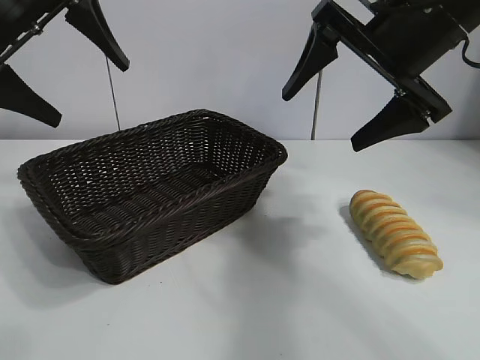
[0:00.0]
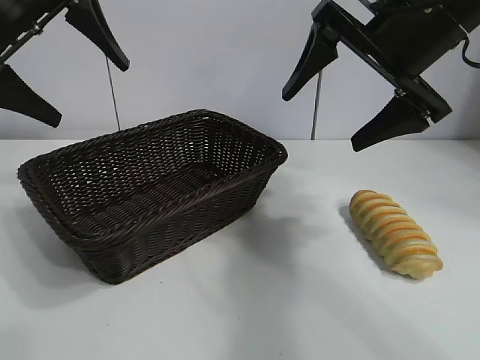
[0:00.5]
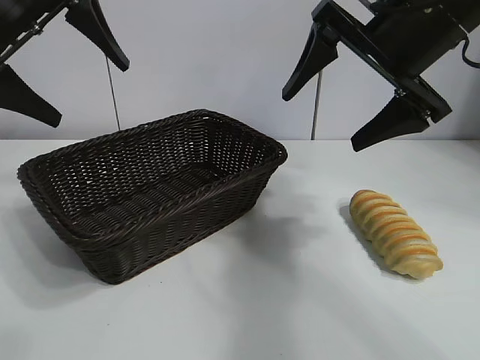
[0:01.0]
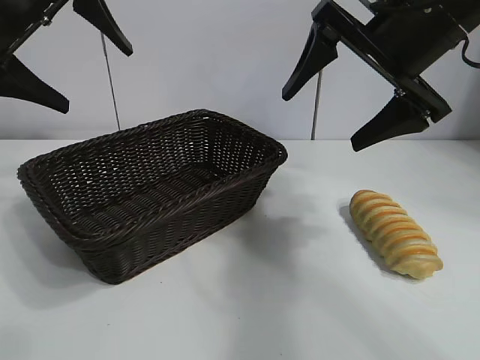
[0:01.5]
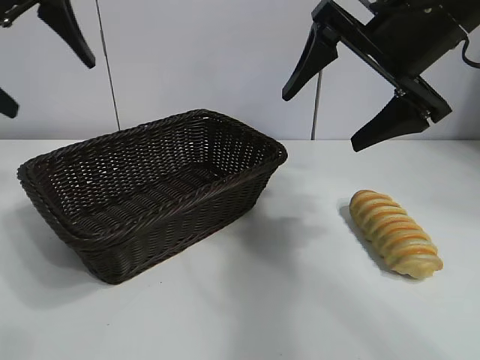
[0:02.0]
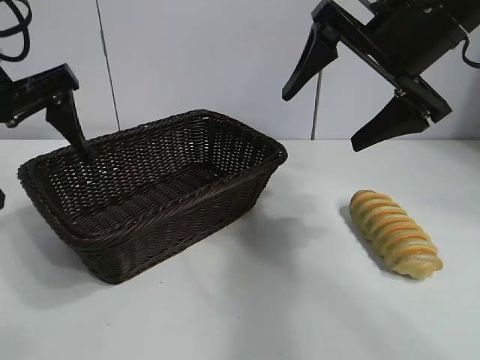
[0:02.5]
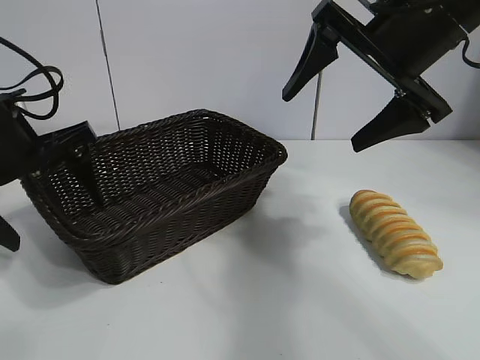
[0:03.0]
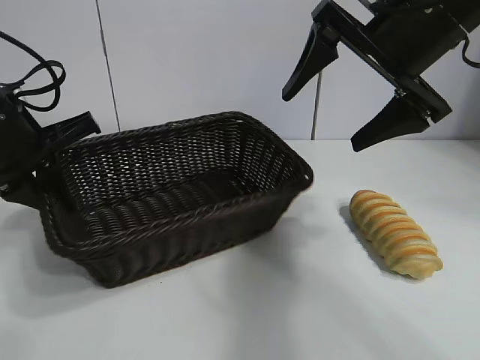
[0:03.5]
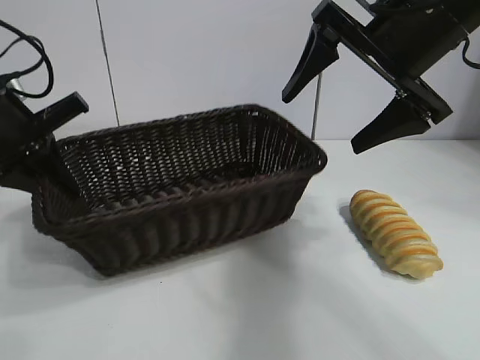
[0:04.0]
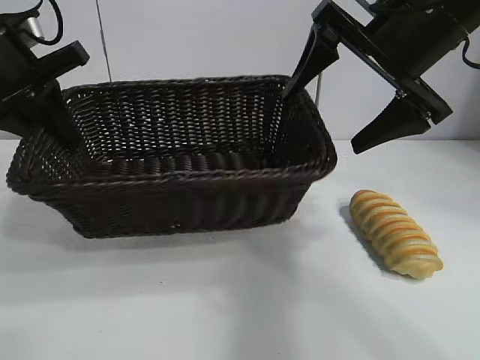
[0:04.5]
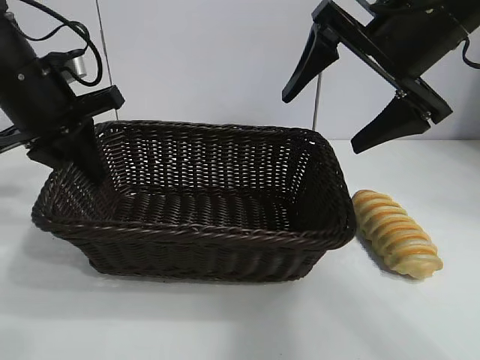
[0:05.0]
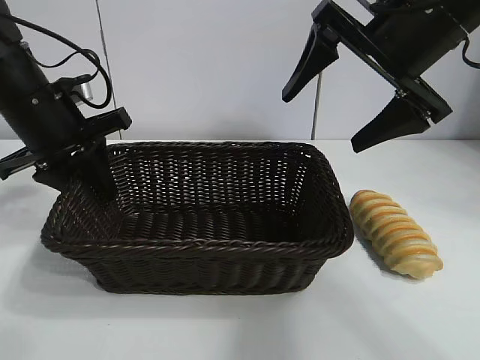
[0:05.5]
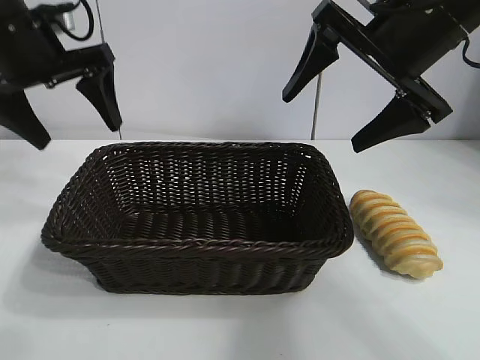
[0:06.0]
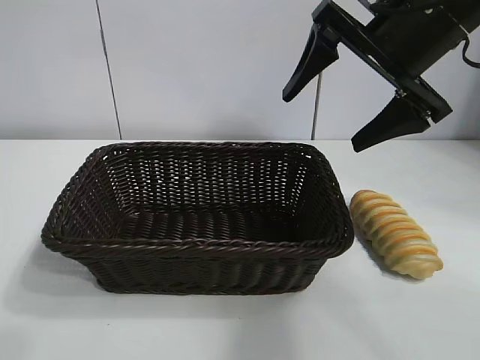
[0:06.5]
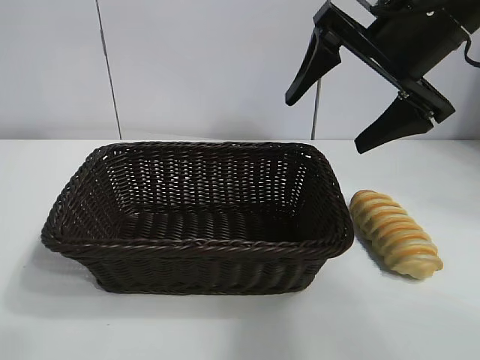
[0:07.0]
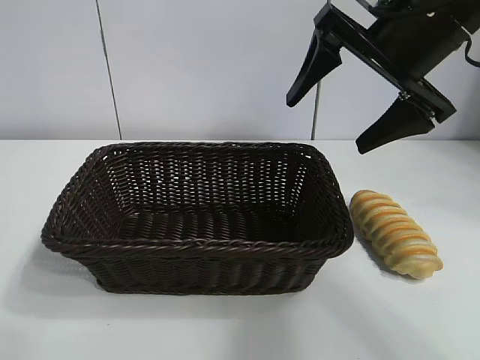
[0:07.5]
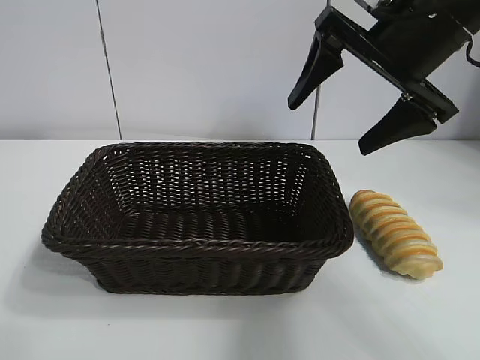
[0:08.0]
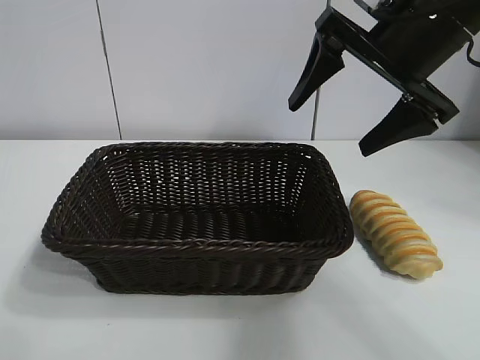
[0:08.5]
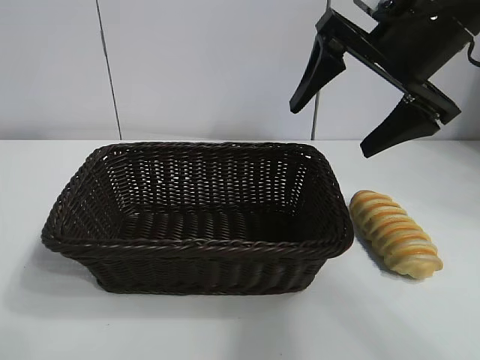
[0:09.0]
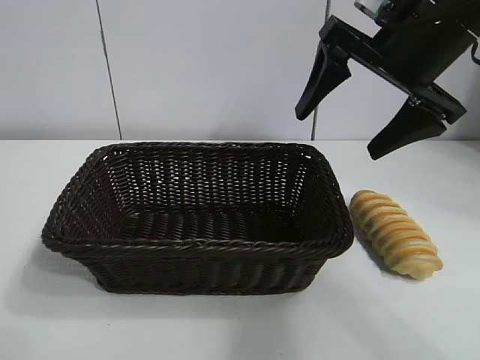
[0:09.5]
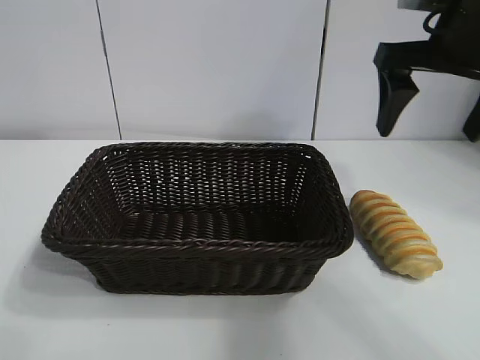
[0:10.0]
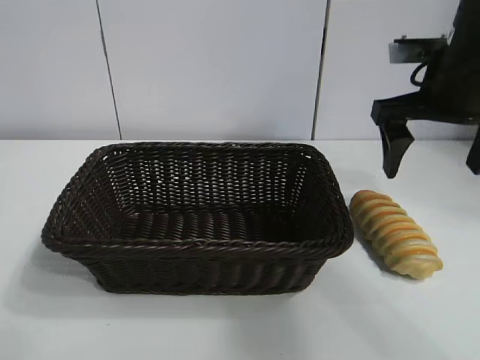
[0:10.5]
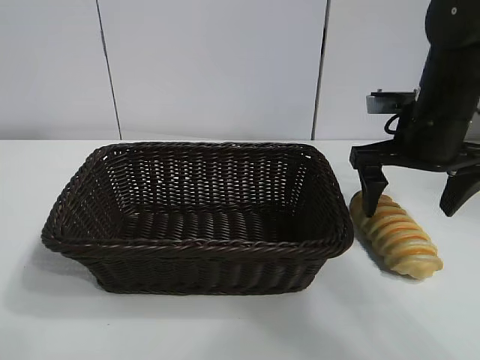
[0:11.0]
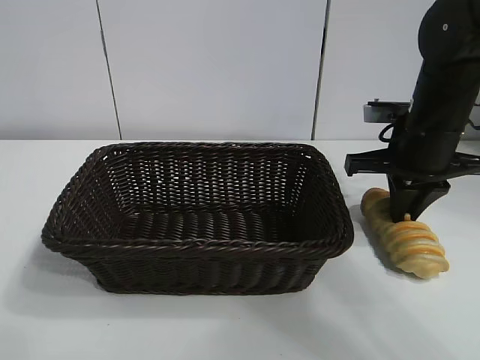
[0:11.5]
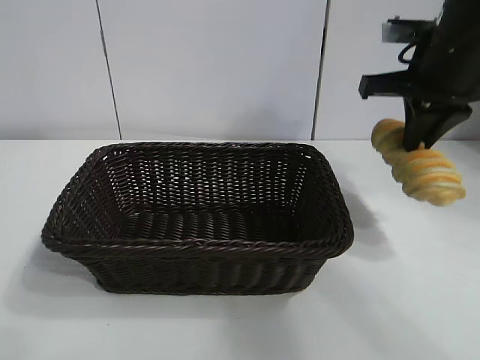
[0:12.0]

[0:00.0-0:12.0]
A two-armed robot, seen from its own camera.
Task of the whole recording: pick up the long bread and put it into the basket.
Step, 0:01.5 to 0:03.0: Grasp the basket with the left gripper.
Step, 0:03.5 to 0:05.5: Place the basket in the center of the table with the left gripper.
Step, 0:06.0 to 0:11.5: Grasp the long bread with right gripper.

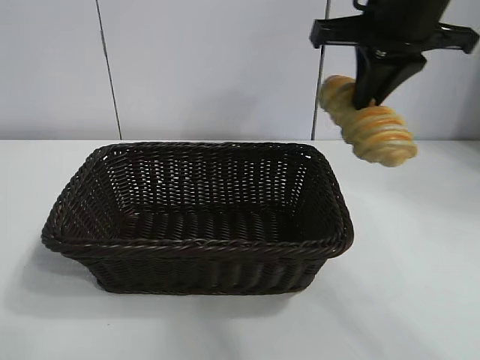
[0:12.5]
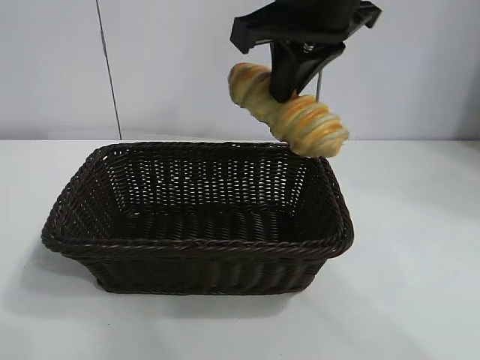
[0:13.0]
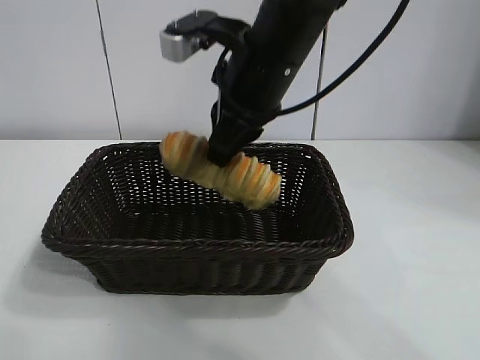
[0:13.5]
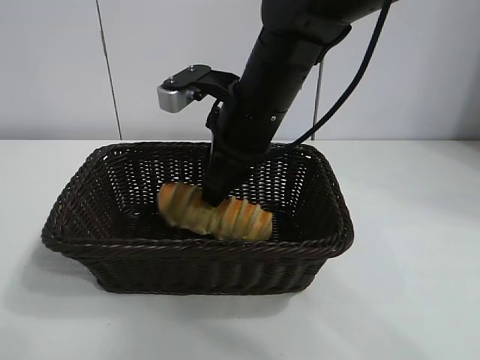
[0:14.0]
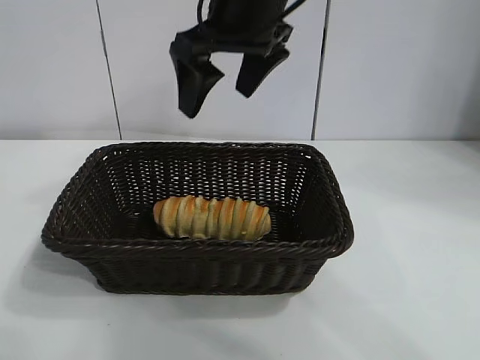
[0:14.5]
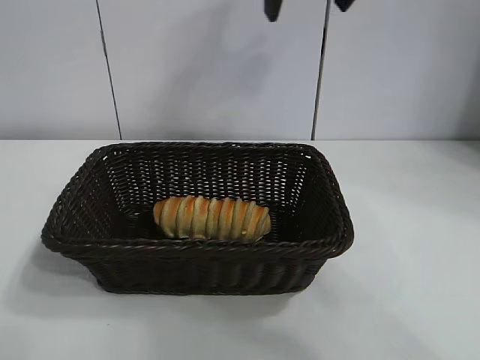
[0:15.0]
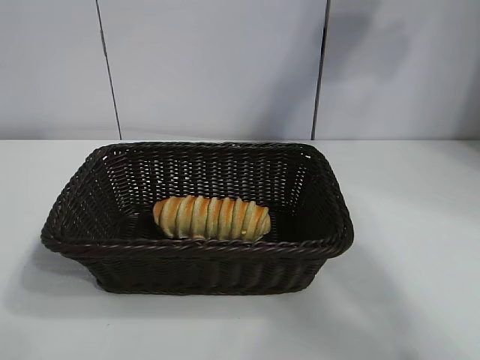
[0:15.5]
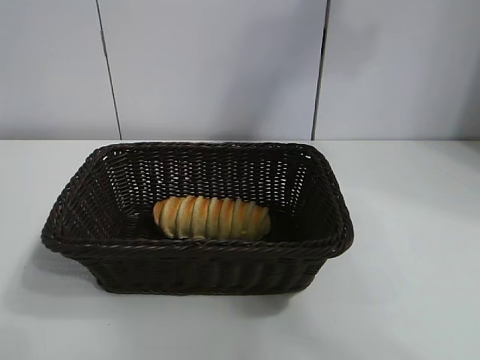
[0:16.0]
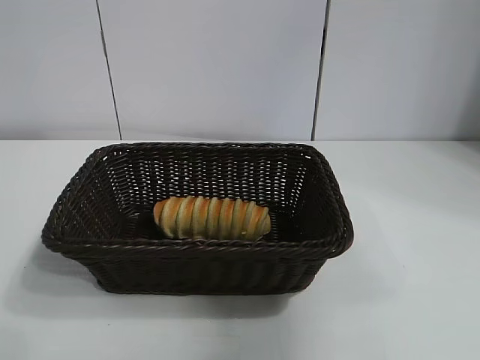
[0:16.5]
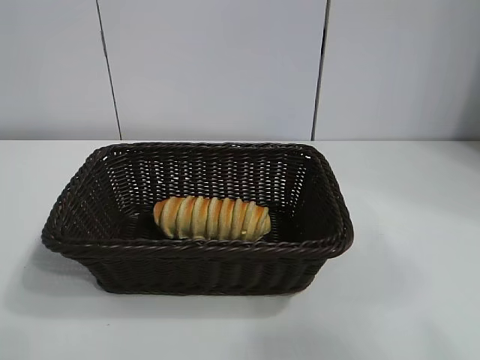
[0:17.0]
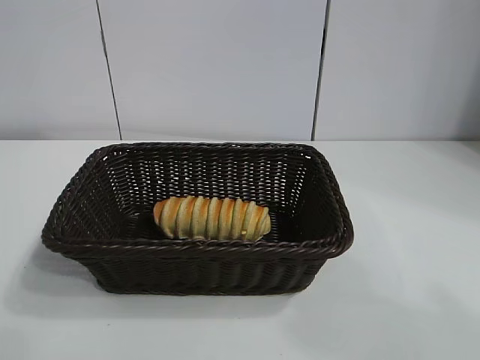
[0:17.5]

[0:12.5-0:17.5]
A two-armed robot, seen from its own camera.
Task of the whole recording: pick up the long bread and put it into the basket.
Step, 0:12.5 to 0:14.0: Place the long bread in the basket with right gripper.
